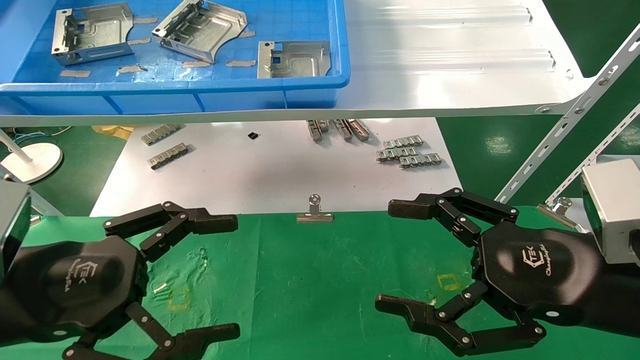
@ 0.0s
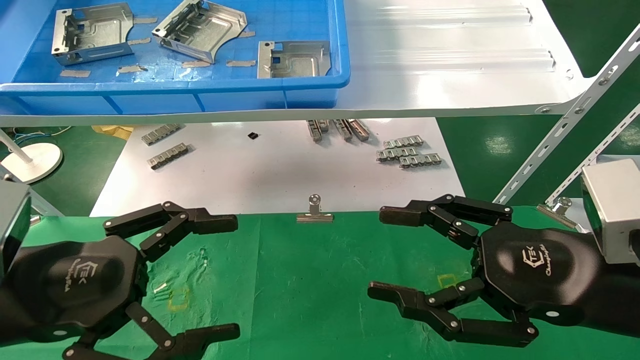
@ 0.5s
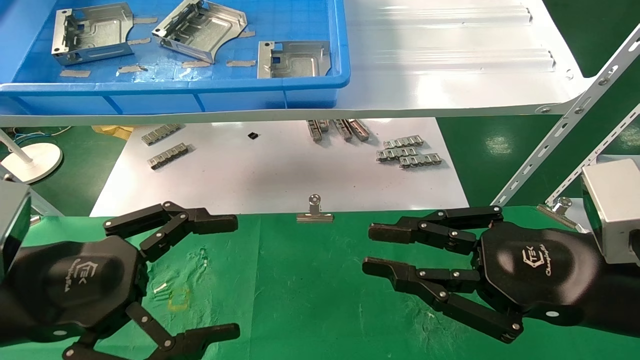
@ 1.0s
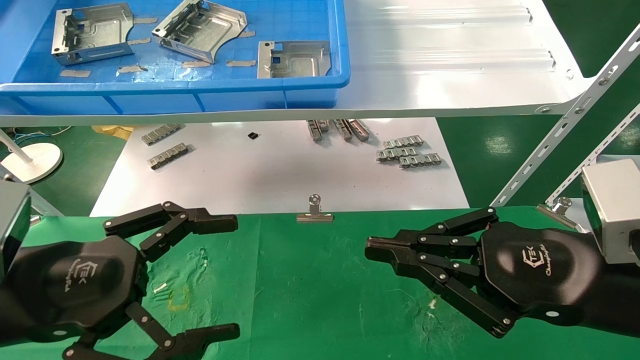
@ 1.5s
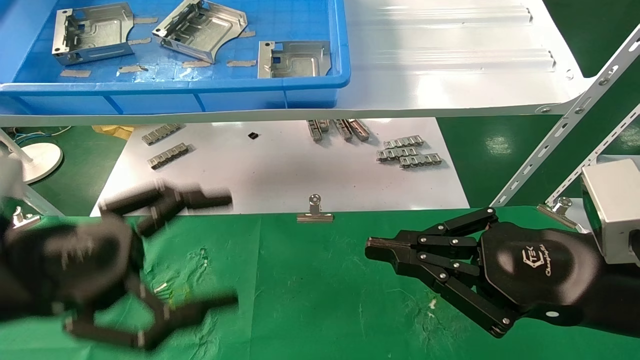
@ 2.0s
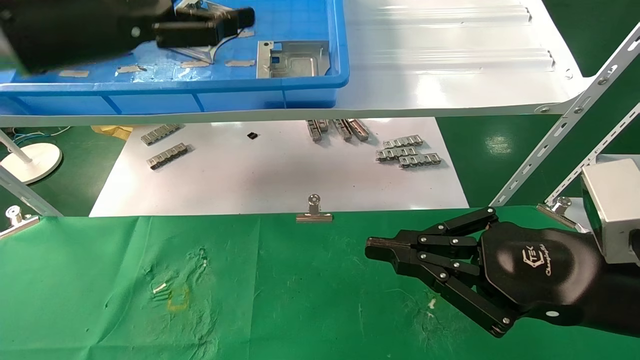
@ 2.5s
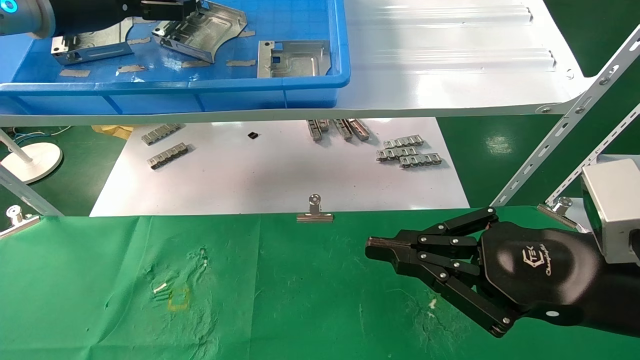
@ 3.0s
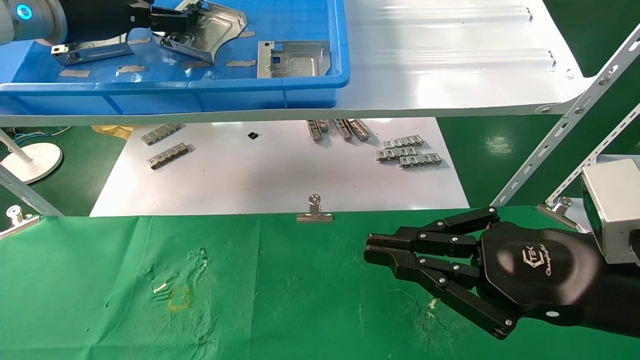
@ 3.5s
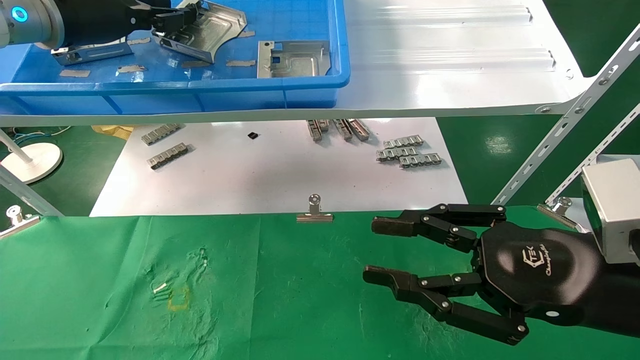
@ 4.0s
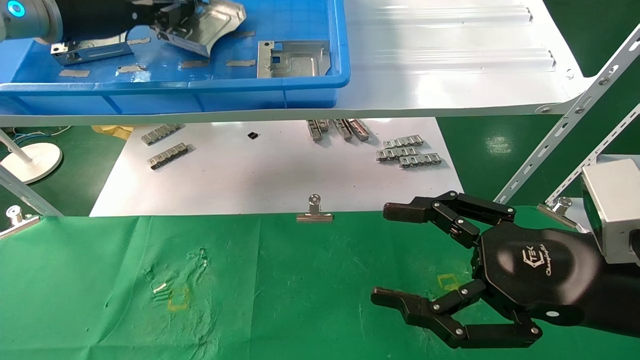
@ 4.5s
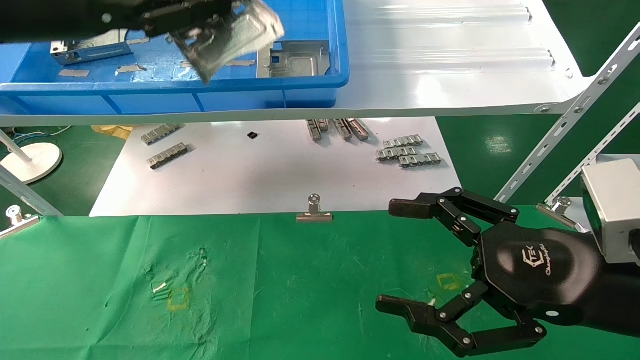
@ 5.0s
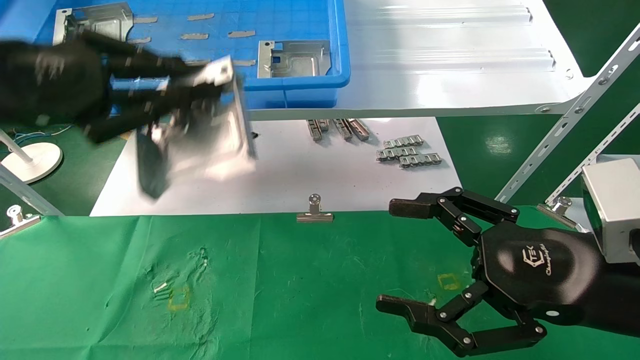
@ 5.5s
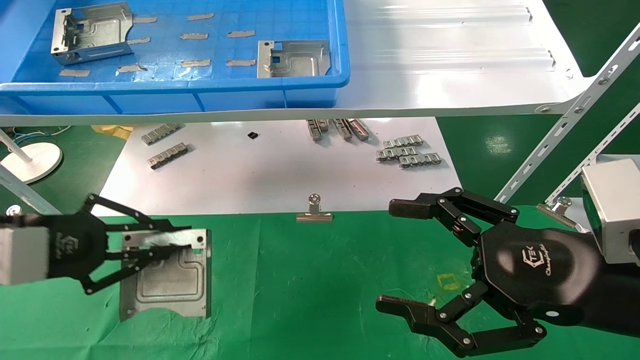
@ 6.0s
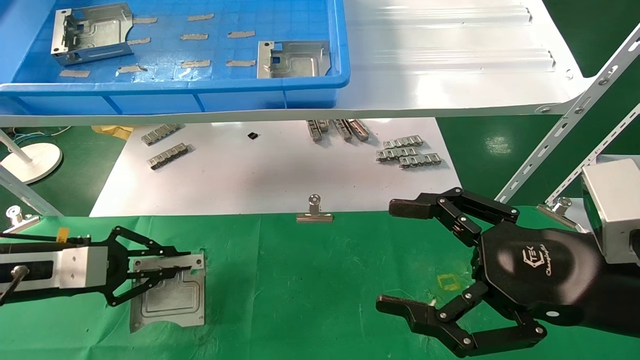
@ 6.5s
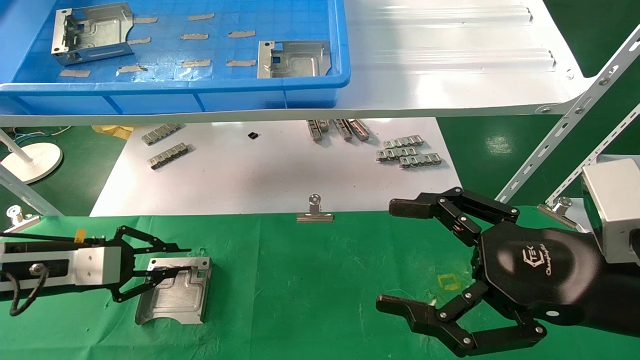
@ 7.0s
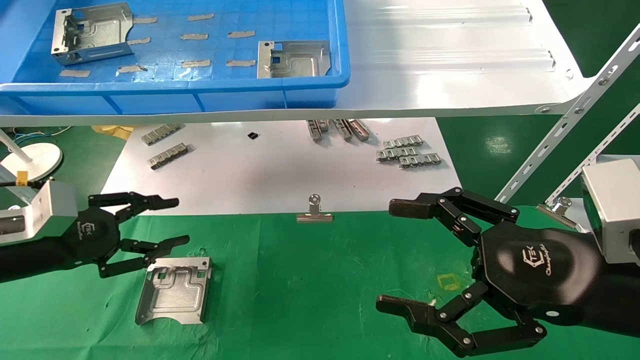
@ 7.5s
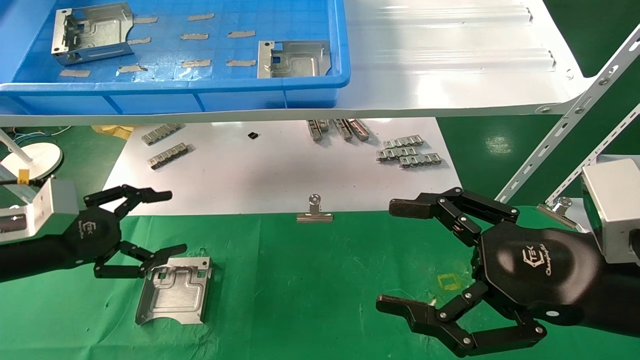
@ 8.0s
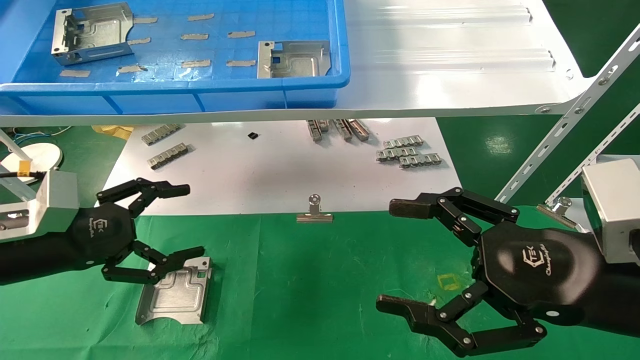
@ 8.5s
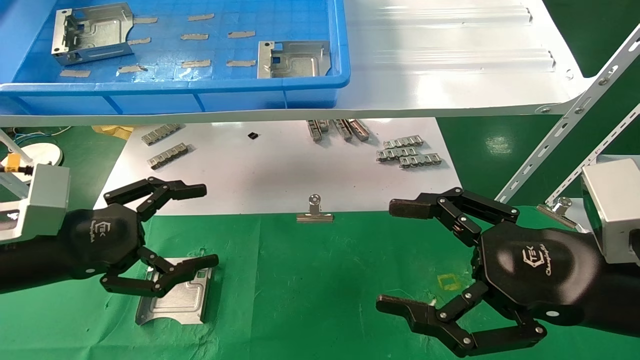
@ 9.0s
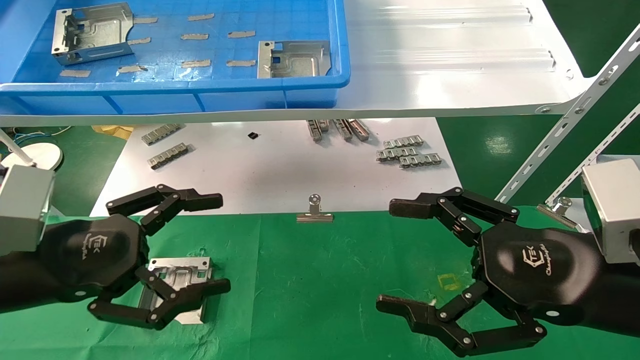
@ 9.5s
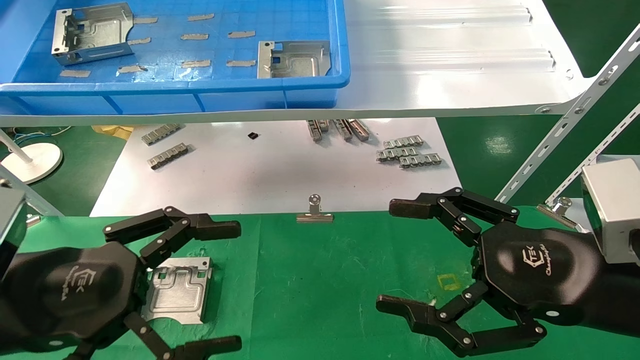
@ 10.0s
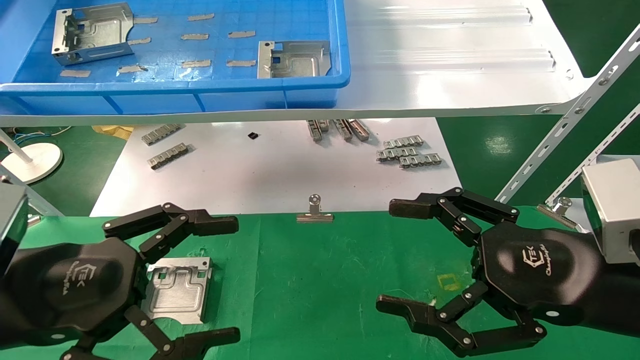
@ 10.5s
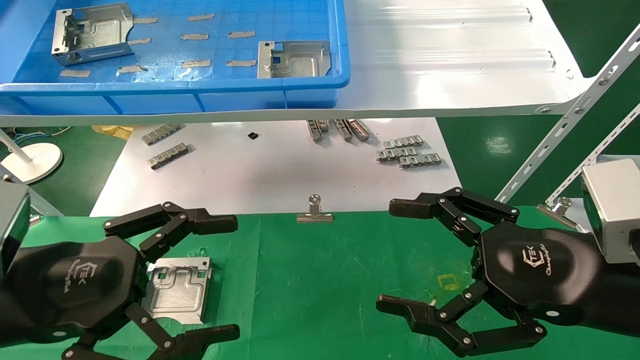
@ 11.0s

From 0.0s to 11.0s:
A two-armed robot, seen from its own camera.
Task of the whole recording: use the mechanical arm to pick up the parts and place them on the table.
Step, from 1.5s to 4.5s: Pick up the hard drive bracket from the feeding area.
Step, from 5.0s to 7.0s: Place the hard drive bracket into the box.
From 0.0s to 2.0s: The right gripper closes up.
From 2.0s to 3.5s: The left gripper heads forward and upward, covering some 30 cm.
From 3.5s to 5.5s: The left gripper heads backward and downward, covering about 20 cm, and closes, while the right gripper opens its fingers.
From 5.5s to 7.5s: The left gripper shifts roughly 20 cm downward, and opens its fingers.
From 7.5s to 9.0s: The left gripper moves to the right, some 5 cm, and opens up.
From 9.0s to 11.0s: The left gripper goes roughly 10 cm backward.

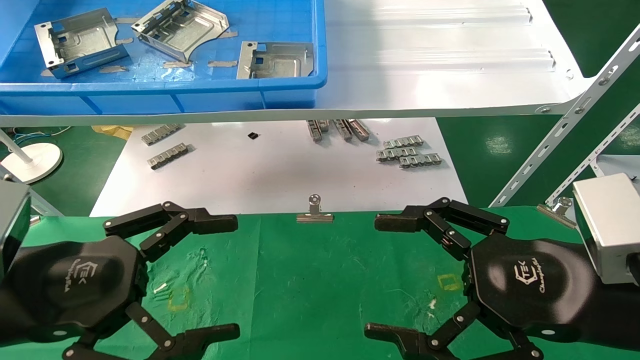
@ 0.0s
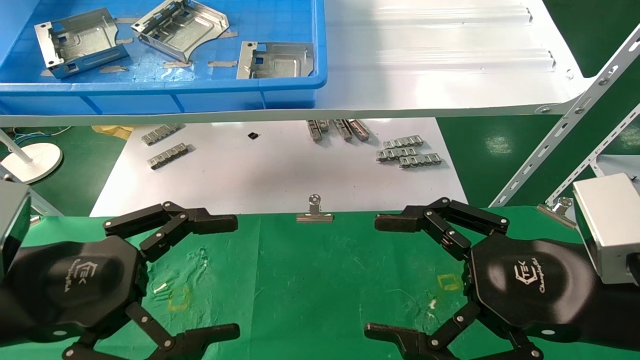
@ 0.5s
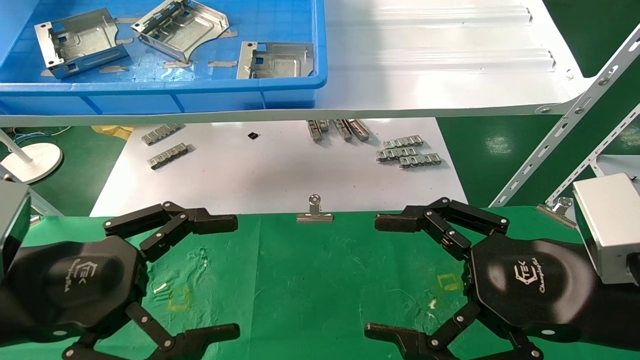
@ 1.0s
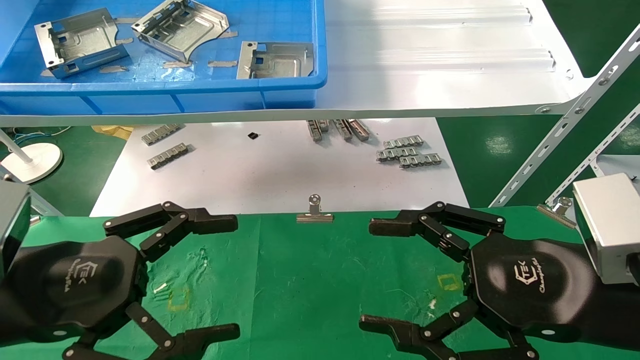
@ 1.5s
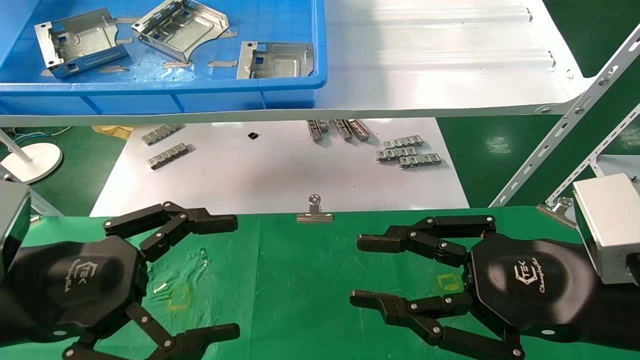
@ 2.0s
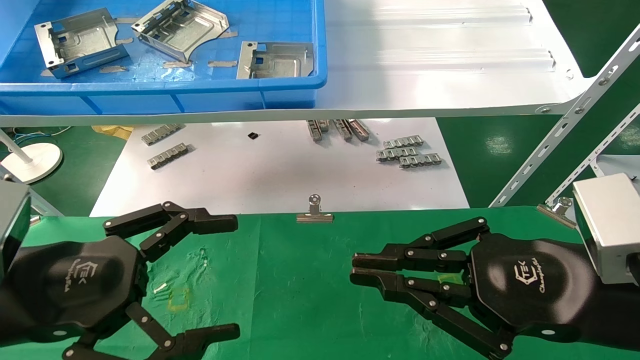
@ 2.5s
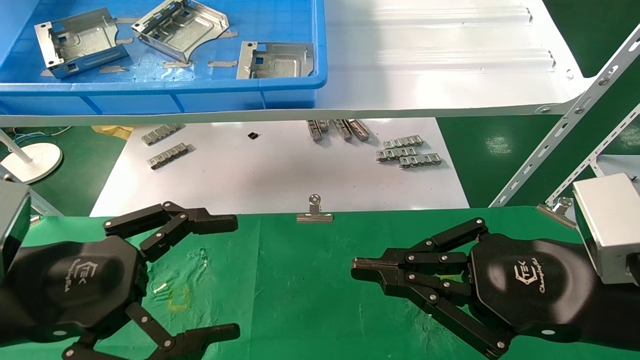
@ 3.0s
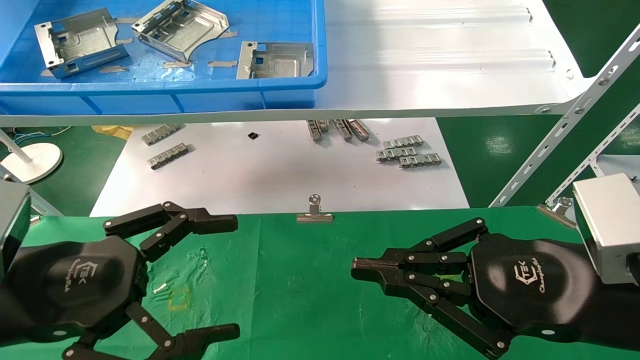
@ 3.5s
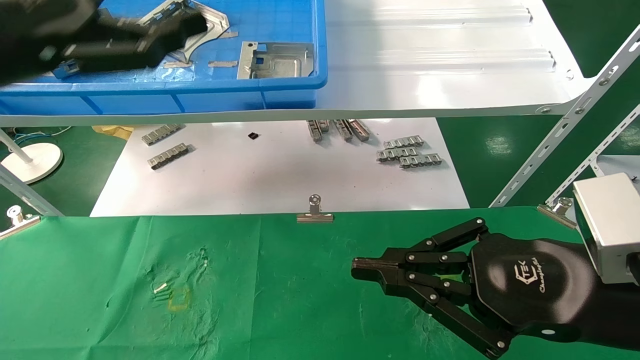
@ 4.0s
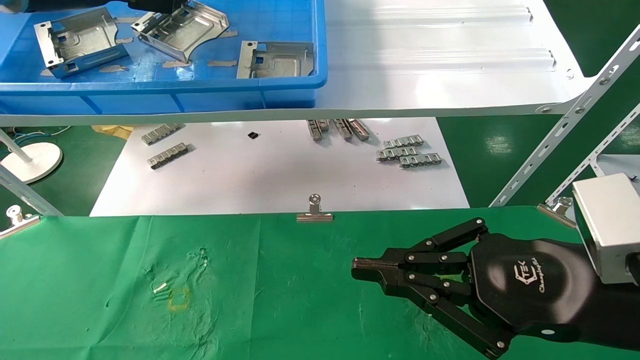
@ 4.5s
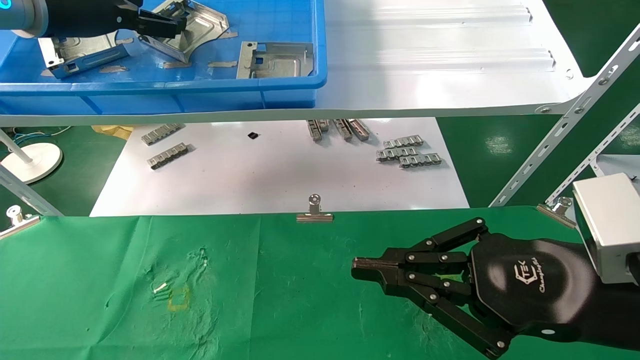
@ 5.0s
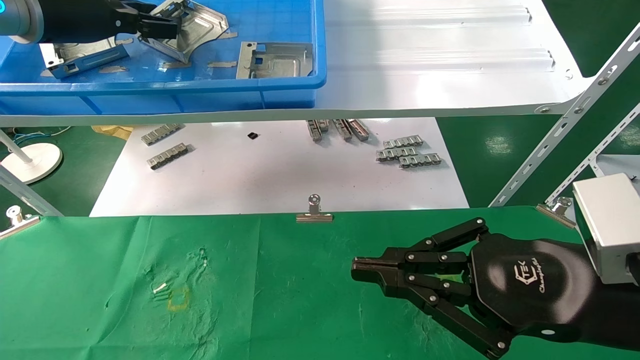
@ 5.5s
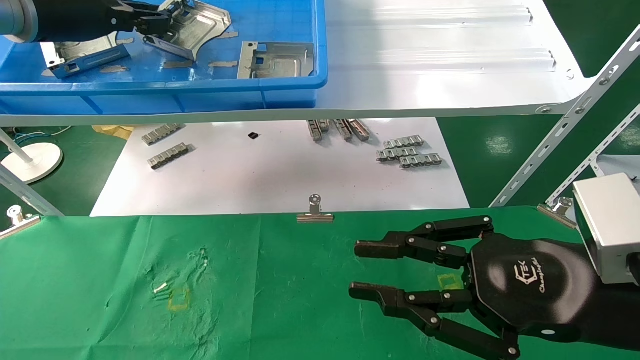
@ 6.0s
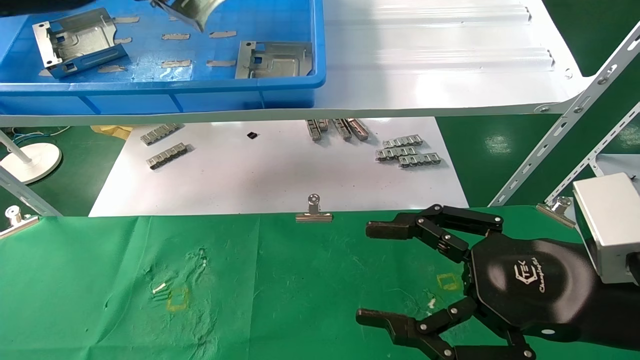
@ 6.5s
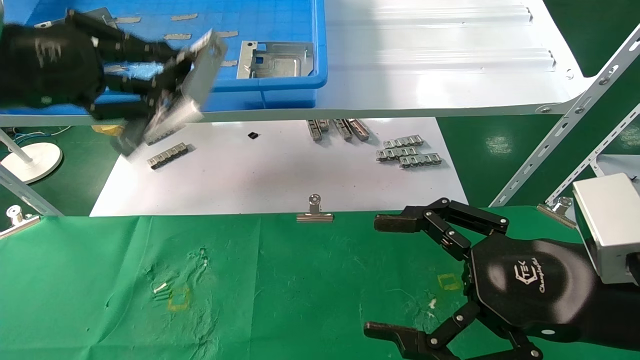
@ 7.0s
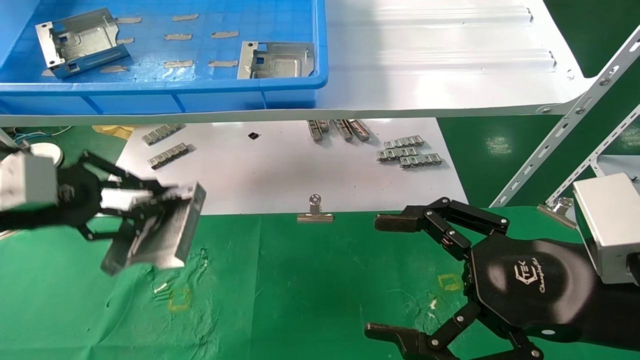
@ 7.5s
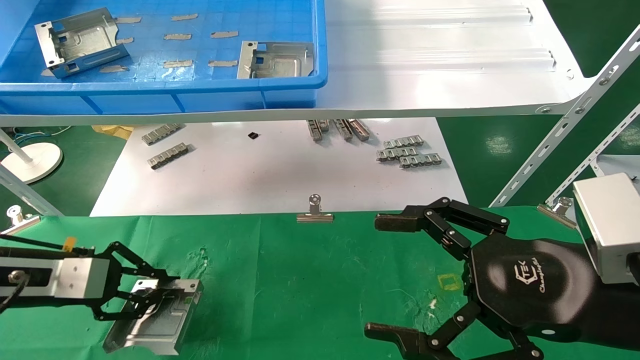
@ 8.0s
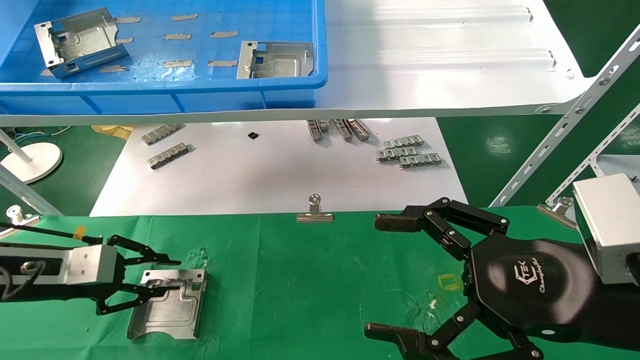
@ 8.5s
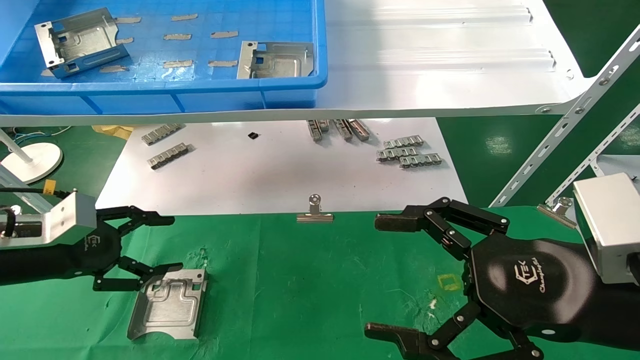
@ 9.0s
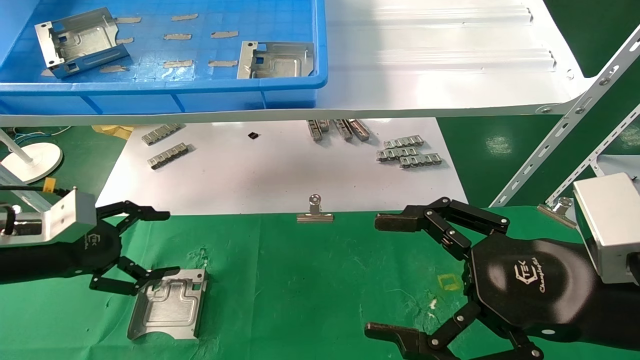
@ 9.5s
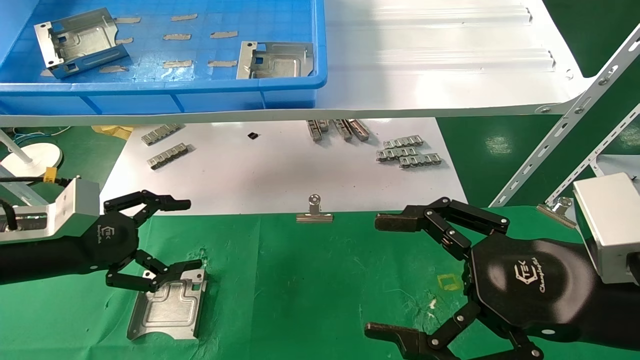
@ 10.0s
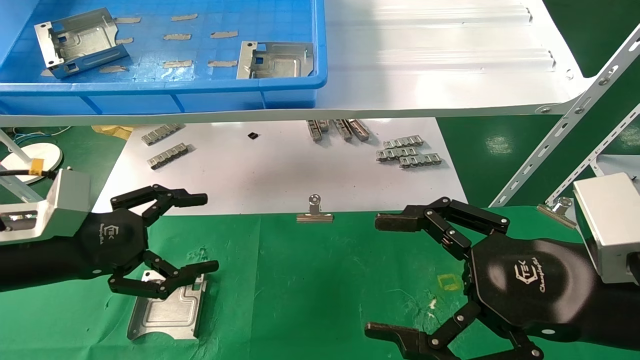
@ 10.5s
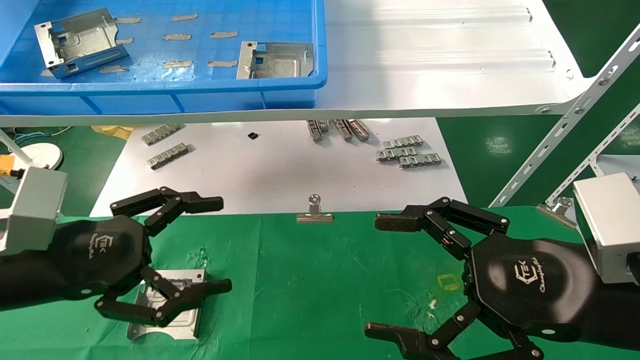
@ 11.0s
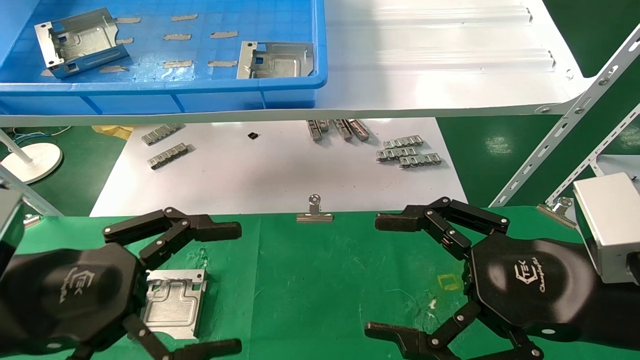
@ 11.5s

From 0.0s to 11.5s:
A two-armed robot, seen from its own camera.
Task of the whole recording: use the mechanical arm to pick up the parts and place them on the table.
Step, from 4.0s to 5.5s: Pick up the hard drive bracket from the feeding area.
Step, from 6.0s to 8.5s: Place the hard drive bracket into the box.
From 0.0s to 2.0s: The right gripper closes.
From 2.0s to 4.0s: The left gripper goes about 20 cm upward and forward. The right gripper closes up.
From 4.0s to 6.0s: The left gripper goes approximately 15 cm forward and upward, and closes.
From 6.0s to 7.5s: The left gripper moves downward and backward, approximately 20 cm. The right gripper opens.
From 7.5s to 9.5s: The left gripper travels downward by approximately 10 cm, and opens.
From 9.5s to 11.5s: The left gripper moves backward and to the right, approximately 15 cm.
